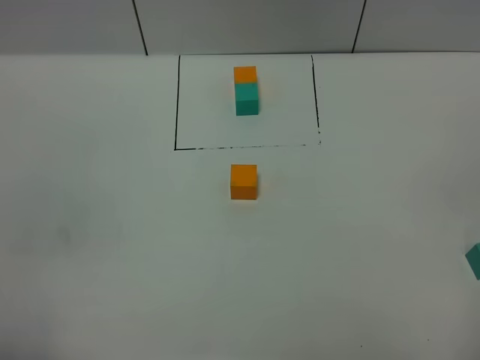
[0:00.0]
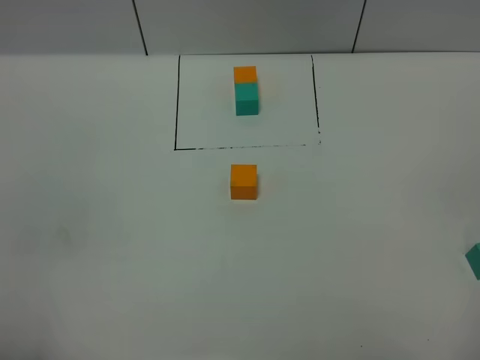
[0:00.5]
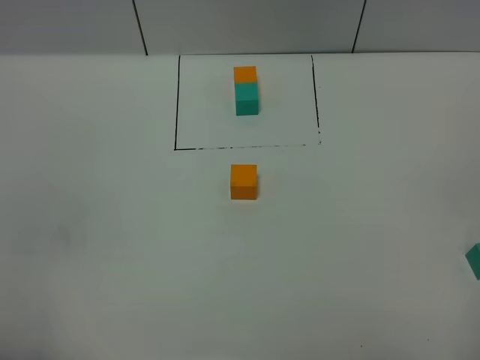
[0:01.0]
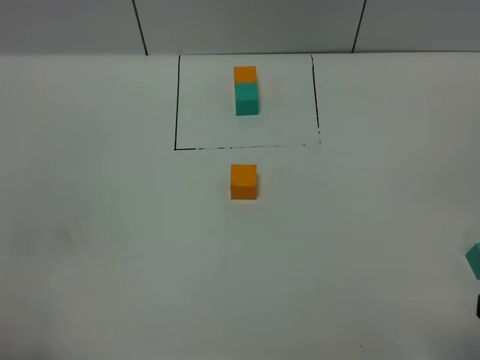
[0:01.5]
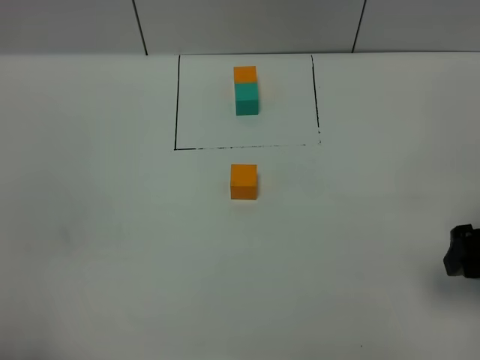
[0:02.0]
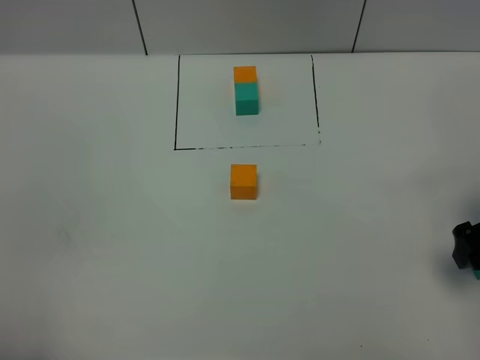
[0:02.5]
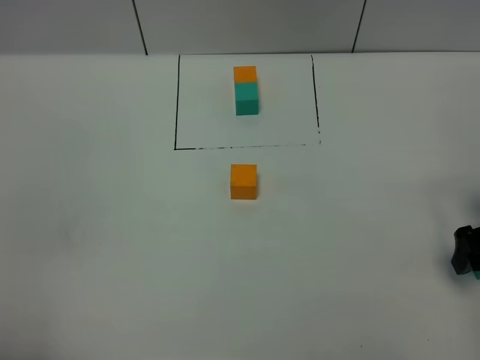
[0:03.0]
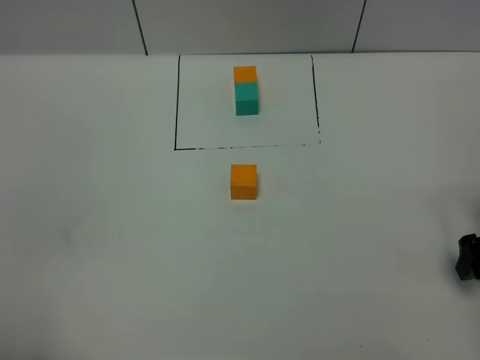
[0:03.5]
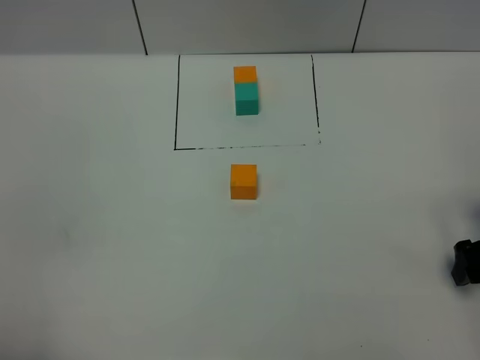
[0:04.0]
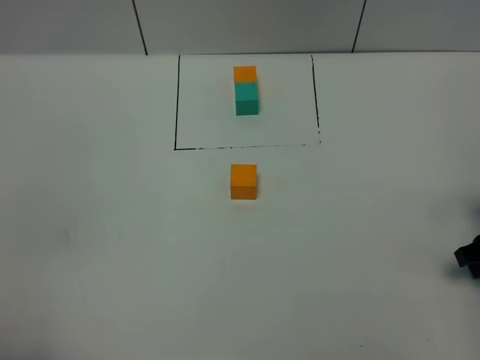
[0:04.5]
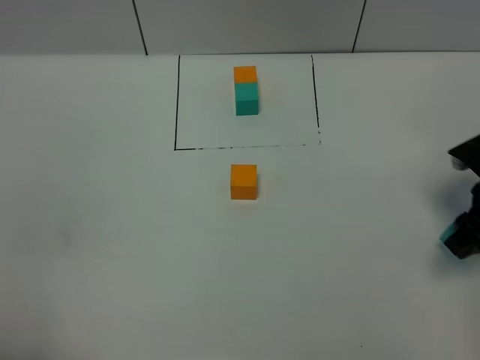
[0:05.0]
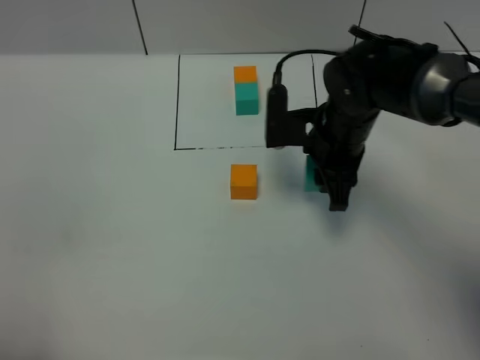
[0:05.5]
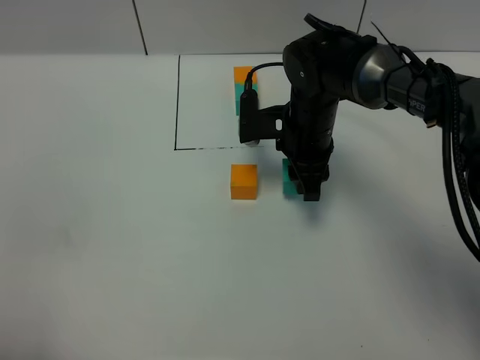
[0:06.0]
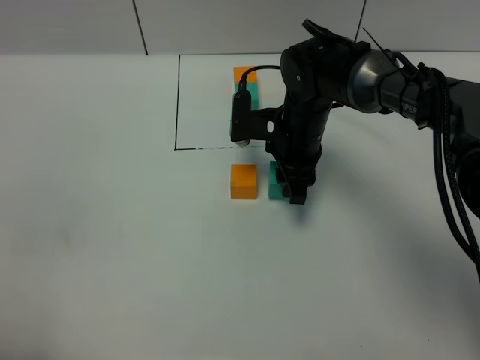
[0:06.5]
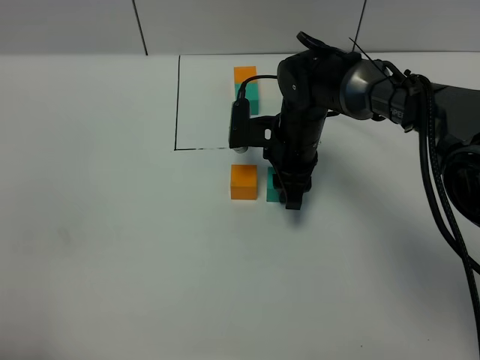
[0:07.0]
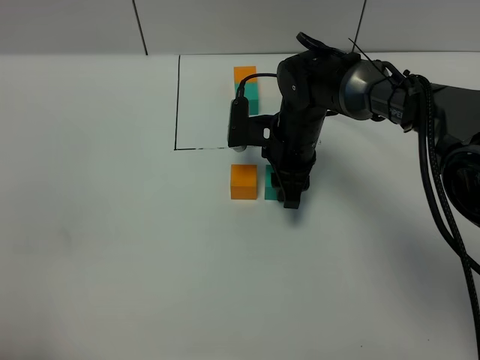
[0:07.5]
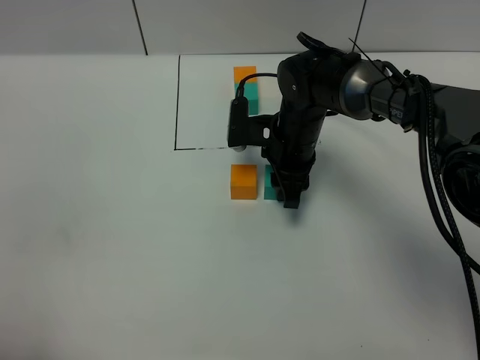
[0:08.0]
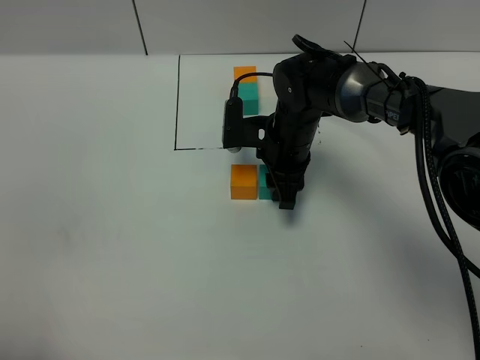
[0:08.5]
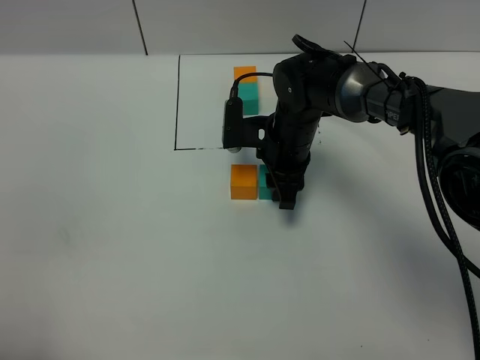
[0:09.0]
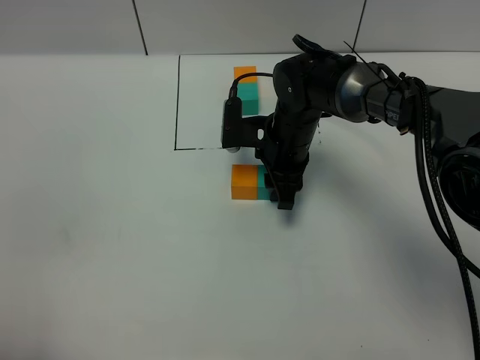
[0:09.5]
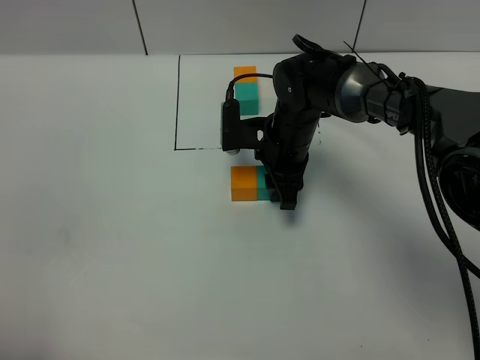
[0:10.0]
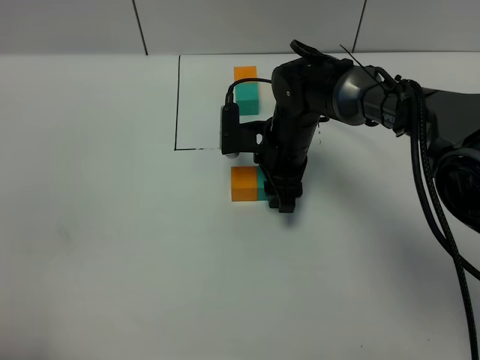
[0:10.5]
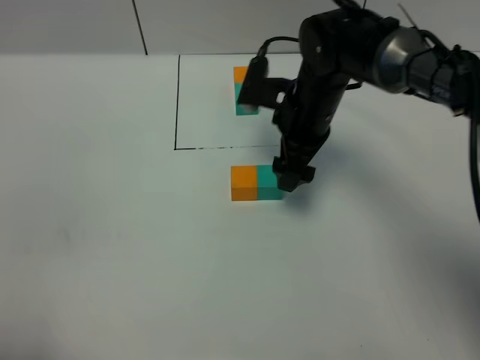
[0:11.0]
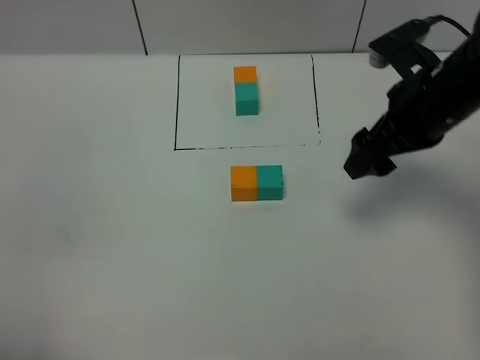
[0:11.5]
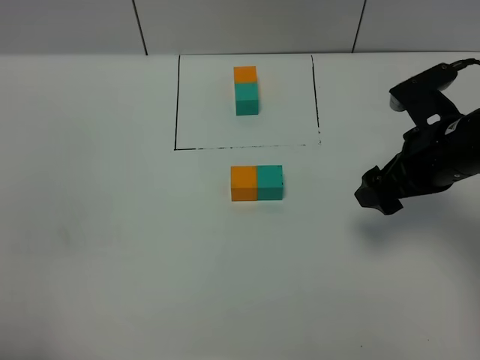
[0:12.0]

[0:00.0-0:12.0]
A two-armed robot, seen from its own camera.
Task of the whole recording: According to the building block template in front, assemble the scattered blocks together.
Step, 0:00.0 to 0:11.0: Put the green cube on the right of the orange cube.
0:00.0 to 0:02.0: The right gripper goes roughly 20 cm forward.
0:02.0 to 0:04.0: The right gripper goes about 10 cm downward.
0:04.0 to 0:06.0: The right gripper is displaced to the left and forward by some 30 cm, and closes.
0:06.0 to 0:08.0: The grippers stay close to where they were, moving slightly.
0:08.0 to 0:10.0: Both grippers stay about where they are.
0:10.0 to 0:12.0: The right gripper heads to the right, backward and upward, covering roughly 20 cm, and opens.

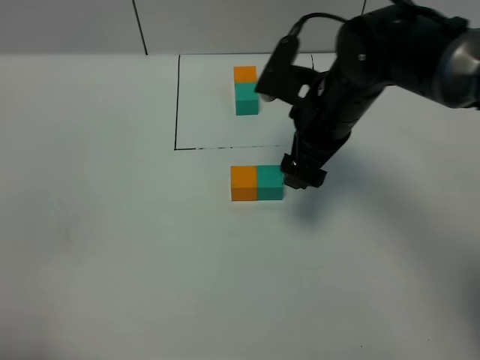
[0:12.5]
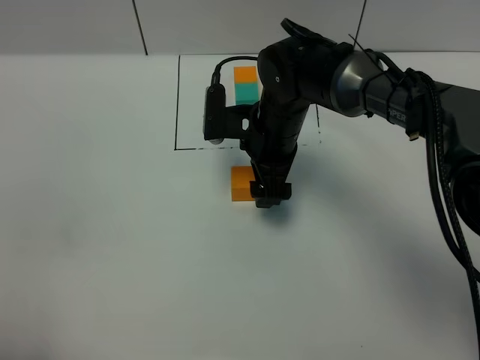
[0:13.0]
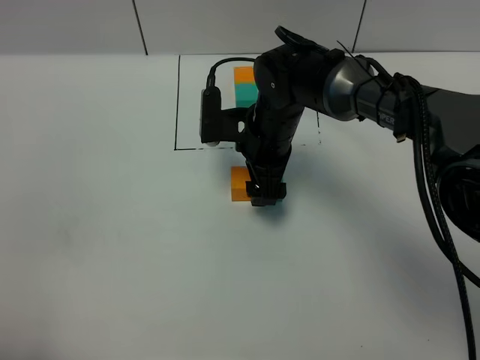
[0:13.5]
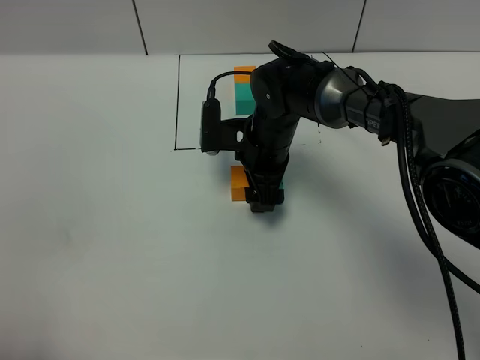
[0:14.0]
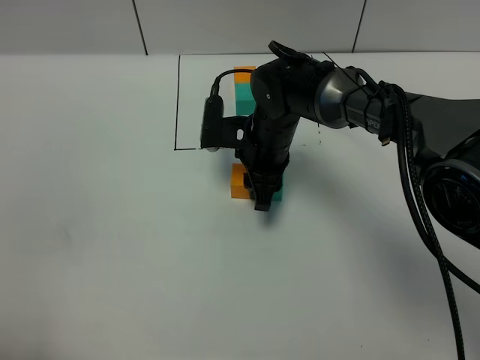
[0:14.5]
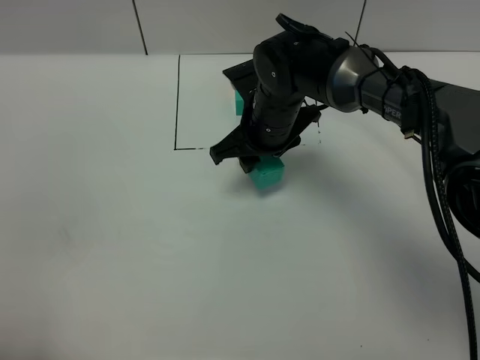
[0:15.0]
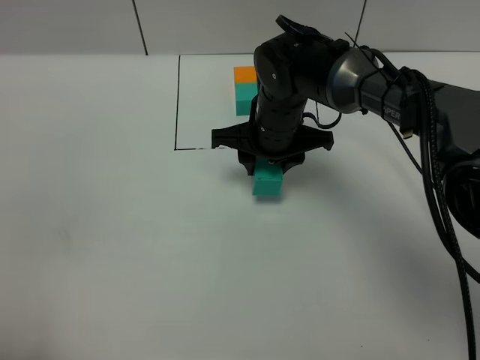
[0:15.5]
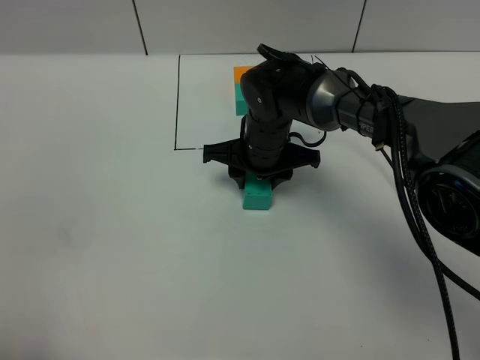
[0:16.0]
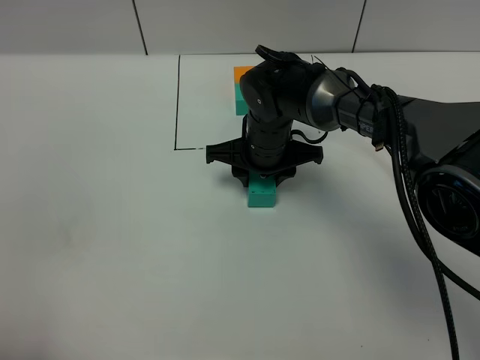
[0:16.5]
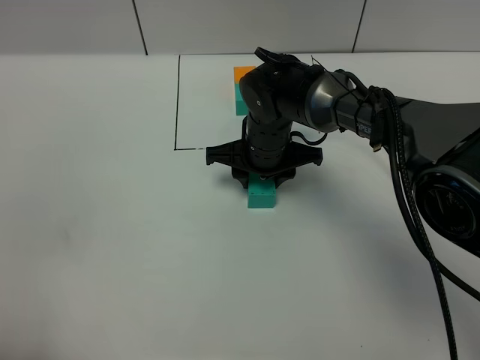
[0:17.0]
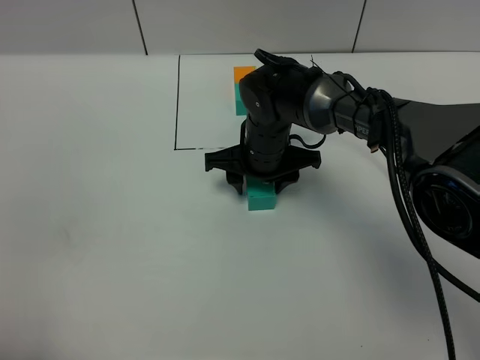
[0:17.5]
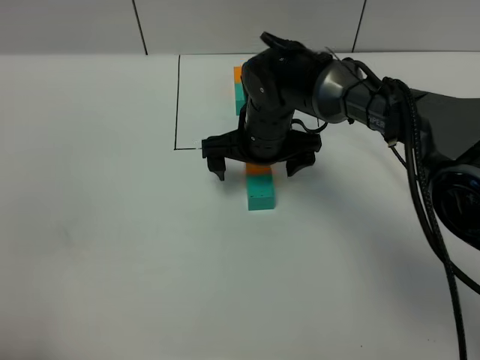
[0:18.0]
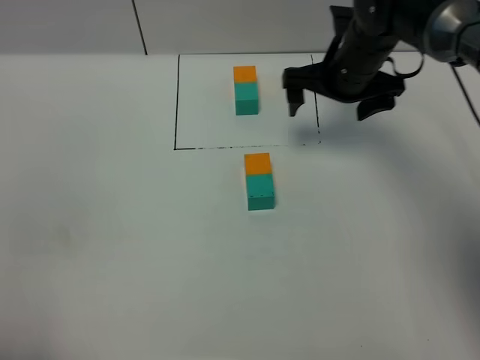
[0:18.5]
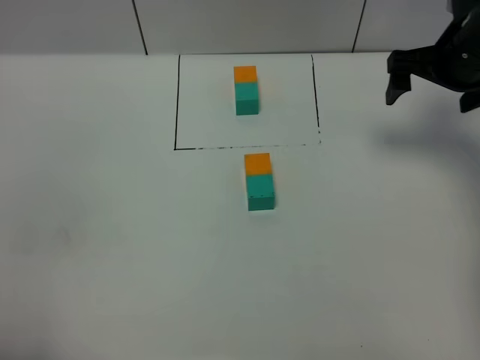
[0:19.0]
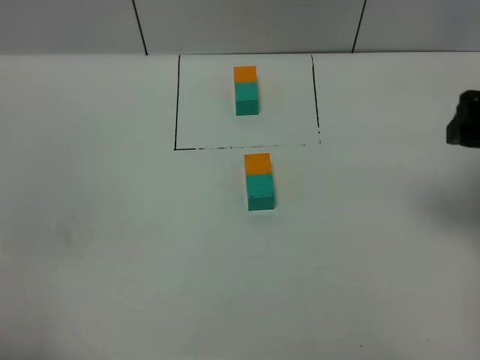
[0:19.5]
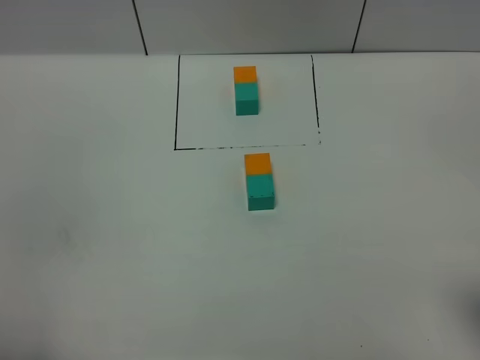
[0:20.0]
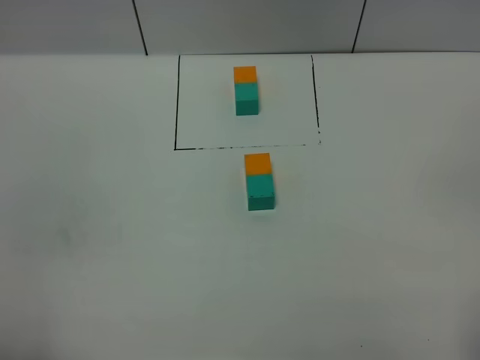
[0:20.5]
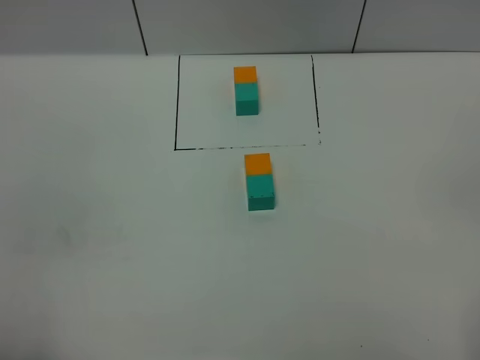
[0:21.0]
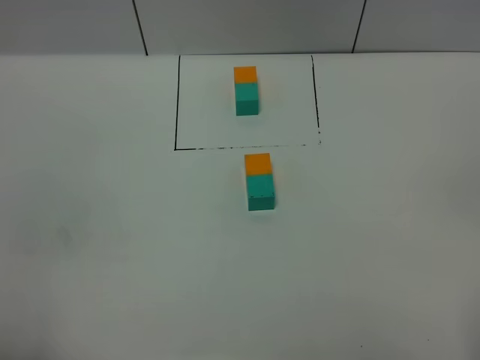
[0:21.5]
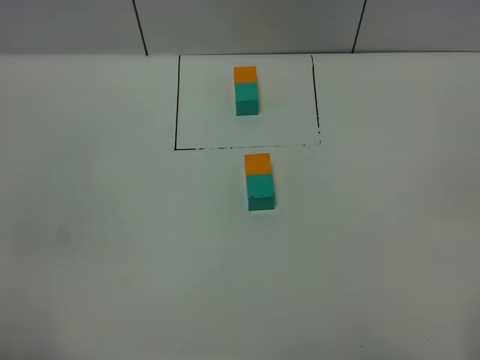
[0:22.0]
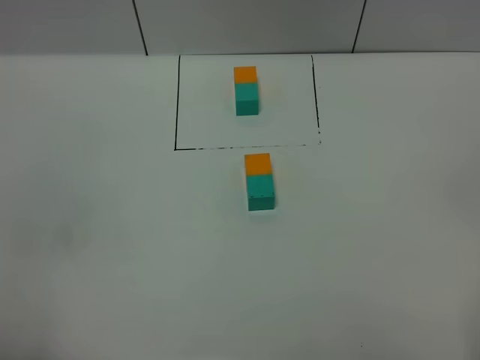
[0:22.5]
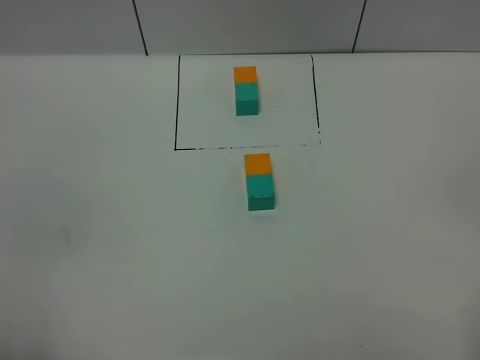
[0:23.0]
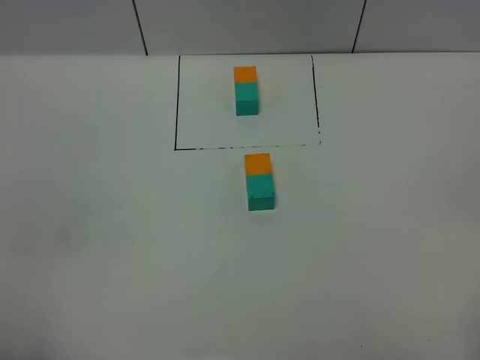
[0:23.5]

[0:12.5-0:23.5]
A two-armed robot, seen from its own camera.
Task of the whole recording: According to the building block template in front, assemble the scattered blocks together.
Step, 0:12.5 to 0:18.0: Adjust the pose of the building blocks.
0:12.5 to 0:14.5: The right gripper goes about 10 cm downward and to the left, and closes up.
0:16.0 to 0:18.0: The right gripper opens its fingers.
0:18.0 to 0:20.0: The right gripper shifts some 40 cm backward, to the right and upward.
0:21.5 to 0:23.5: Both grippers stay about where they are.
